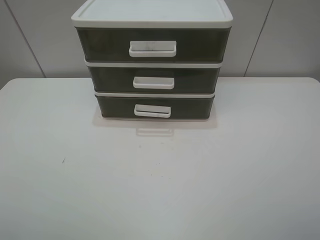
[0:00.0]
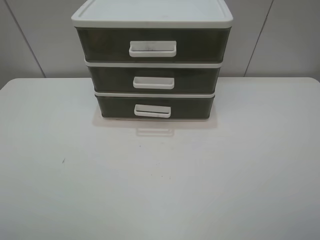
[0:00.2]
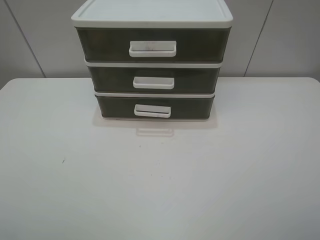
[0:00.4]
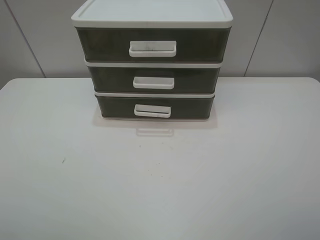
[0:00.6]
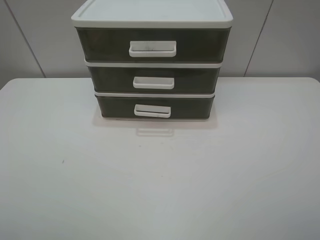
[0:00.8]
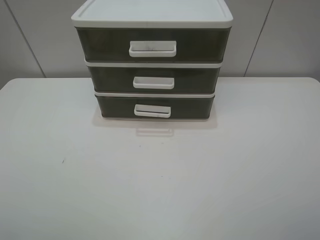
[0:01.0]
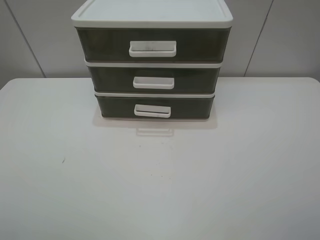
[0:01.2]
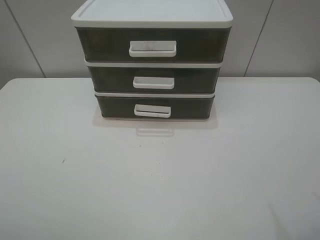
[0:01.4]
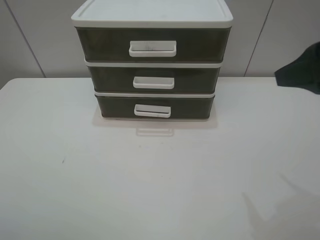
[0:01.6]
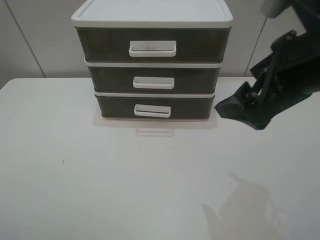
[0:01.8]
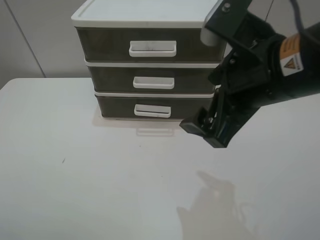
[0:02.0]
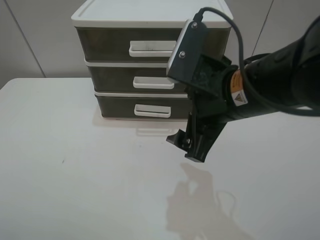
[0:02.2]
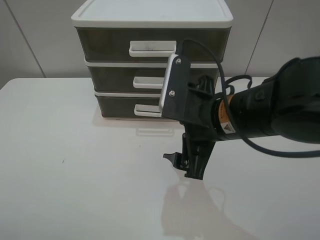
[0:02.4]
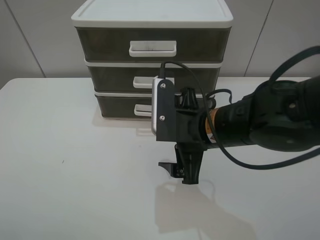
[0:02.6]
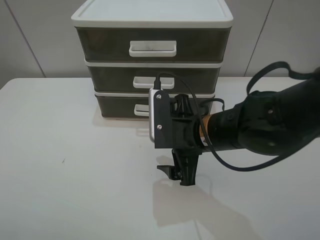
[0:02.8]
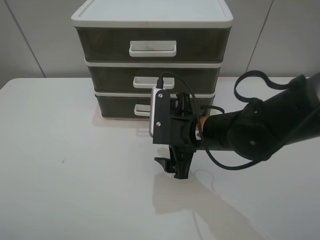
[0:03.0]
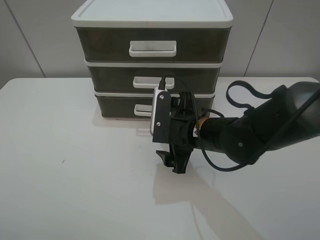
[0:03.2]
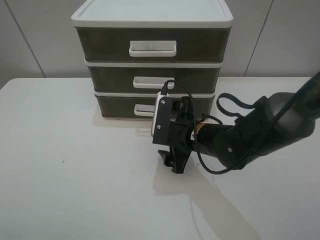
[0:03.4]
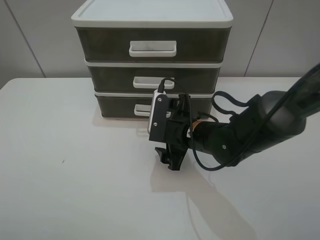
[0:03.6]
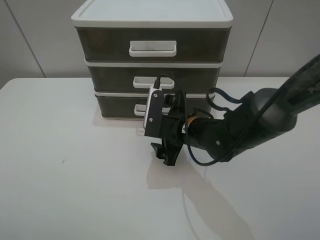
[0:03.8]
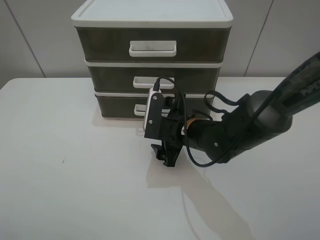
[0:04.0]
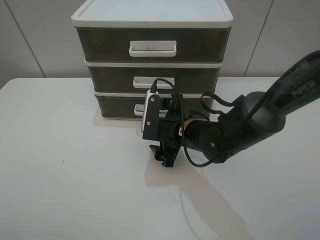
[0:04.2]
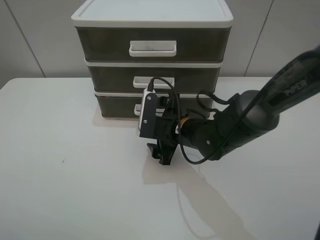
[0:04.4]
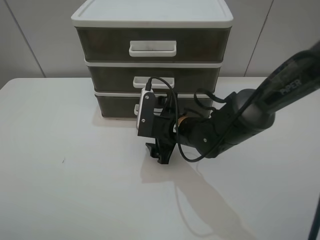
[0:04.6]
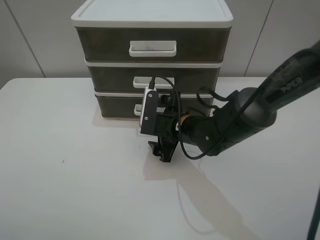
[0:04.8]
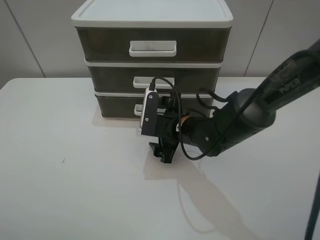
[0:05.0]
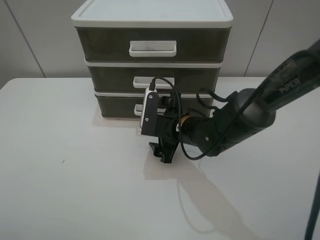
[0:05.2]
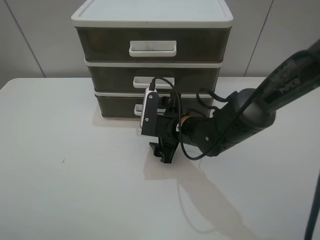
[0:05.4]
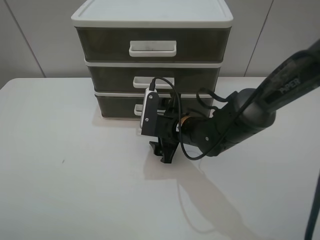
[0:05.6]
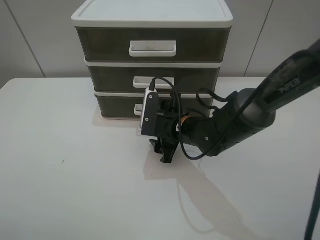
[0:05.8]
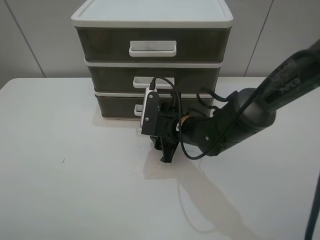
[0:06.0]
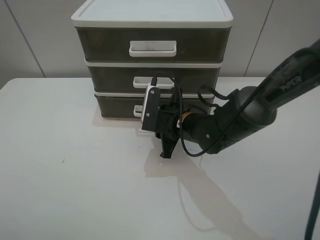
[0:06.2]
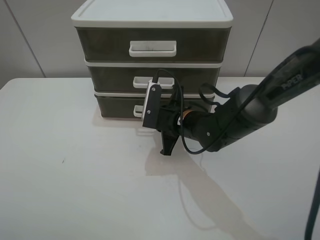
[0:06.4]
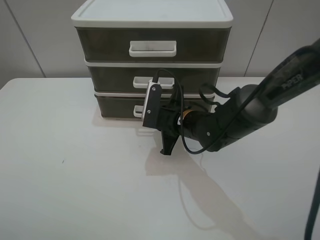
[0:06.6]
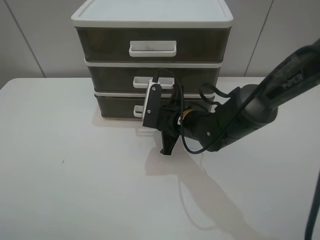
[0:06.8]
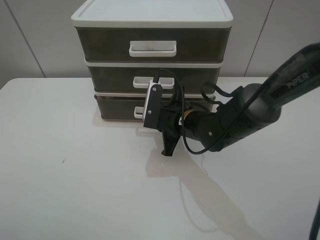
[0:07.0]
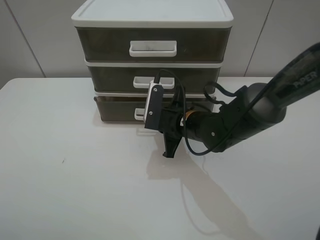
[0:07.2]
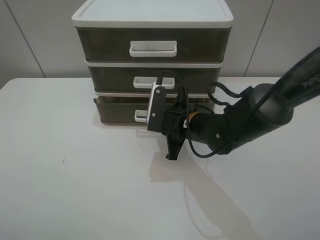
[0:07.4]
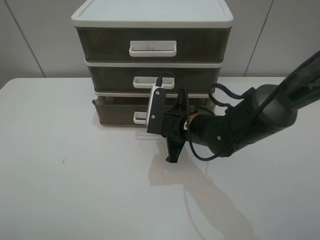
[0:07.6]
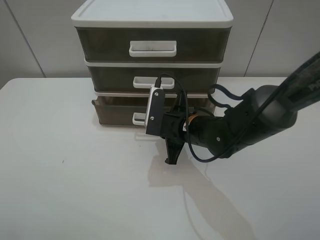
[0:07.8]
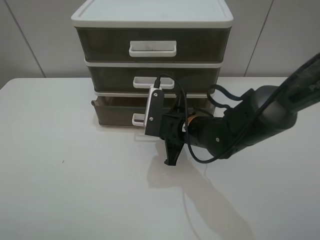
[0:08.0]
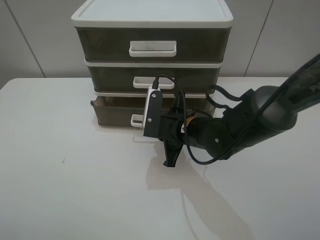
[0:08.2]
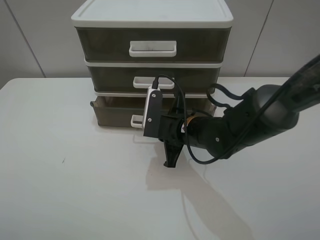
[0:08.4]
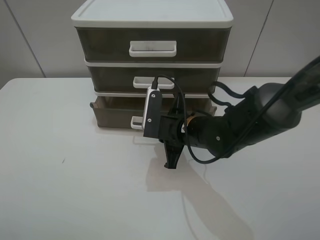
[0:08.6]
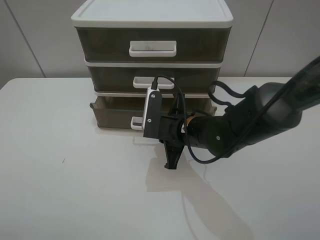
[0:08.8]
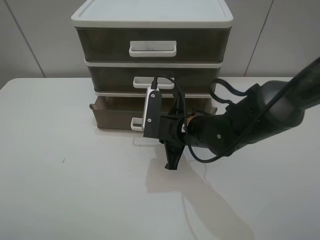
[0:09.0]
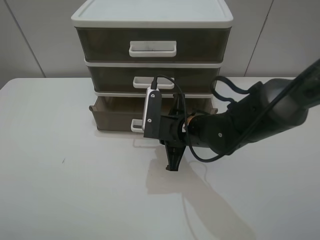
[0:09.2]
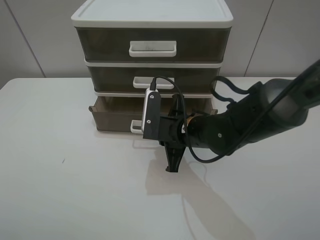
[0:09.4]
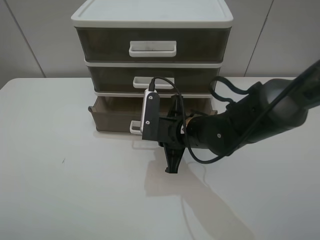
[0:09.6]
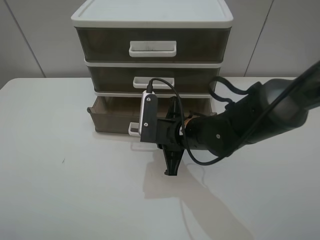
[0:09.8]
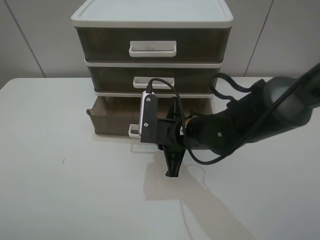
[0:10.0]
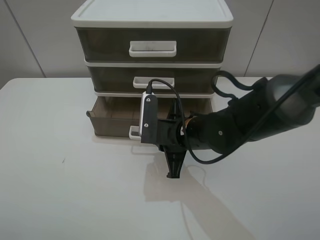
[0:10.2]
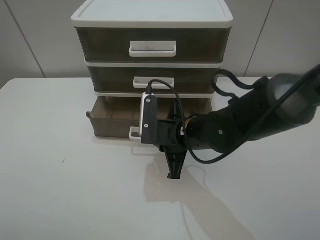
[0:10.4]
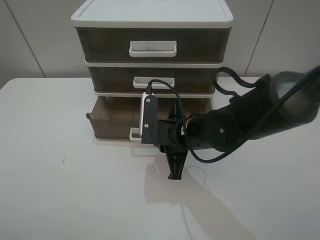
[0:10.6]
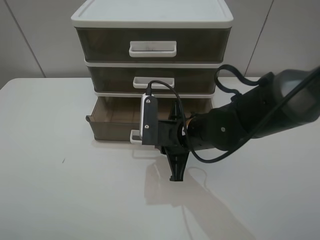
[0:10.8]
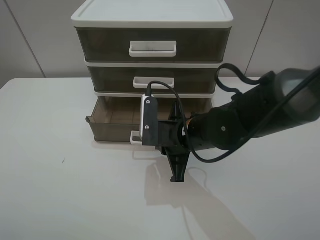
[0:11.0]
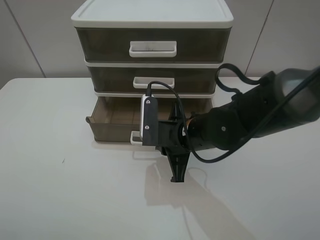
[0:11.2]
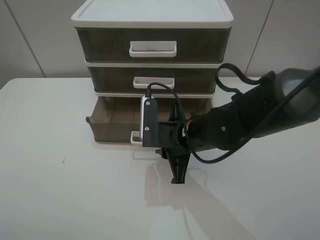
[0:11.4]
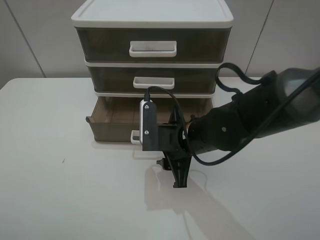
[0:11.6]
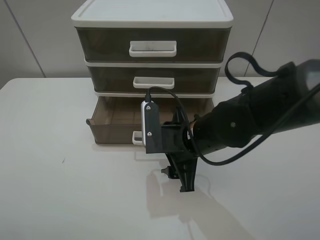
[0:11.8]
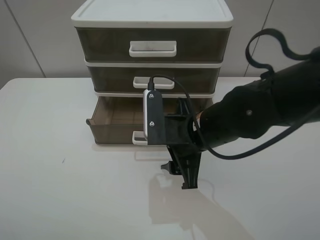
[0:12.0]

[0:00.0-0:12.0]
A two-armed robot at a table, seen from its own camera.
Task of the whole recording: open the bottom drawer.
Step, 0:00.0 to 0:06.8: Grab the bottom drawer with the right gripper.
Step, 0:07.0 to 0:12.0: Pull open the drawer with the right gripper.
0:00.0 to 0:01.6: The right gripper travels forward by roughly 15 cm.
0:01.6 to 0:03.0: The right gripper travels downward and to the left by roughly 25 cm.
0:03.0 to 0:04.4: The right gripper changes place by about 5 cm.
0:04.4 to 0:06.0: The right gripper closes up.
0:06.0 to 0:07.6: The right gripper closes up.
0:07.6 to 0:10.4: The grippers stay close to where they were, moving slightly.
0:10.4 to 0:12.0: The right gripper moves upward, about 5 cm, and opens up.

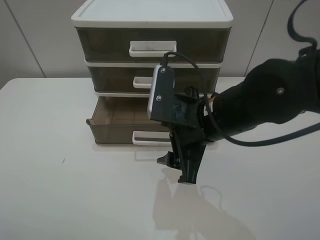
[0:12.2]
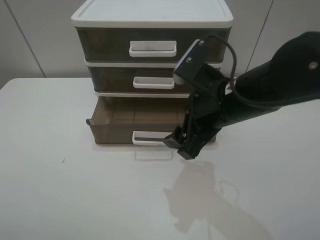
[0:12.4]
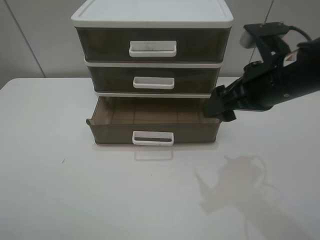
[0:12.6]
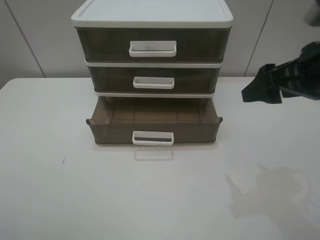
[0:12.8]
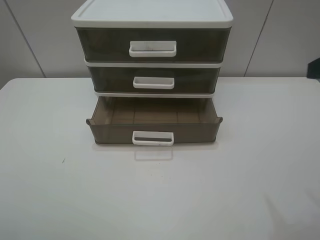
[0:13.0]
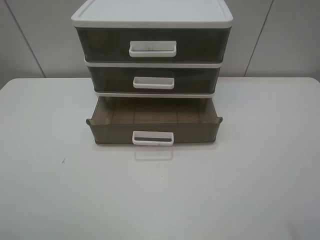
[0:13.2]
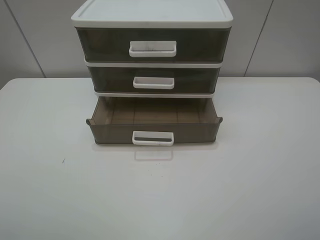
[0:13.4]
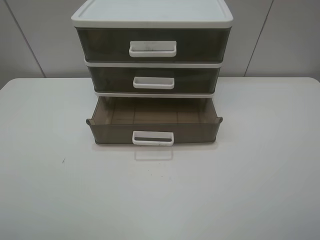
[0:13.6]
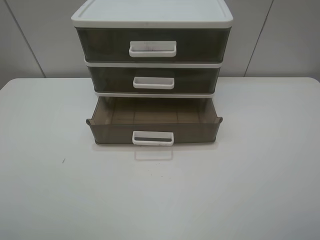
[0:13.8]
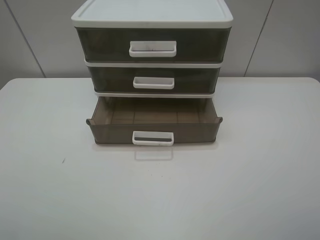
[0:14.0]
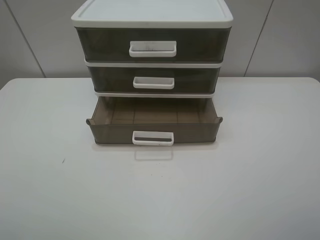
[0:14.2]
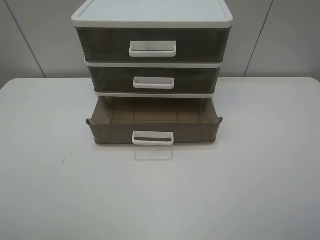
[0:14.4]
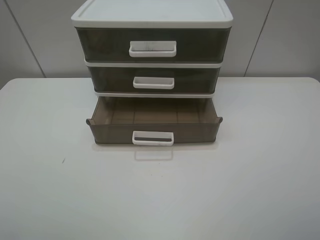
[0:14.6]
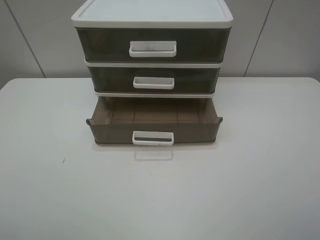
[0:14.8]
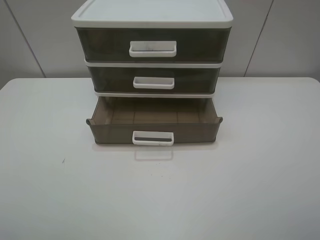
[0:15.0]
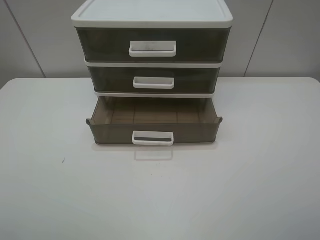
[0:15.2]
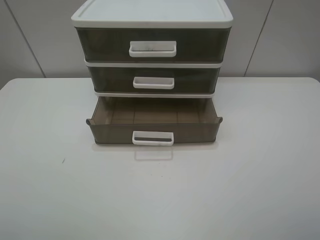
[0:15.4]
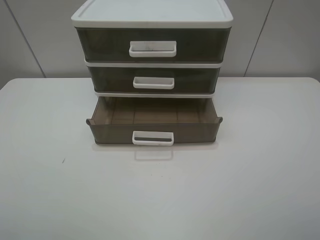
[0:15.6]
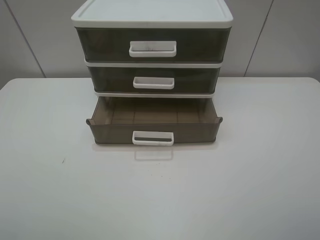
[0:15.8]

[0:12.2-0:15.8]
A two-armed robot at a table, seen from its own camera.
Task of the whole recording: open the bottom drawer.
0:12.2 to 0:14.0: The right gripper moves backward, to the right and upward, roughly 30 cm.
0:14.0 to 0:15.8: Neither gripper changes place.
